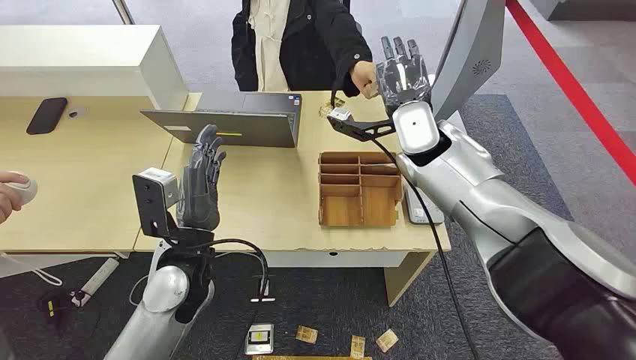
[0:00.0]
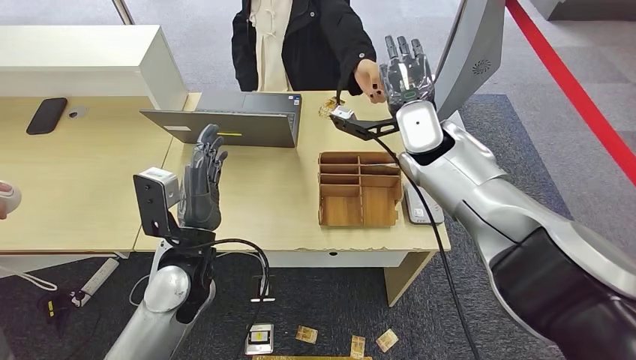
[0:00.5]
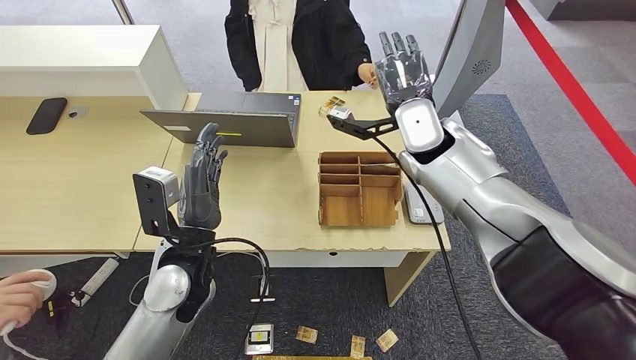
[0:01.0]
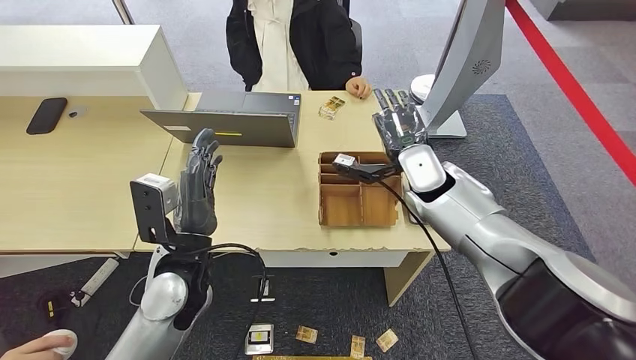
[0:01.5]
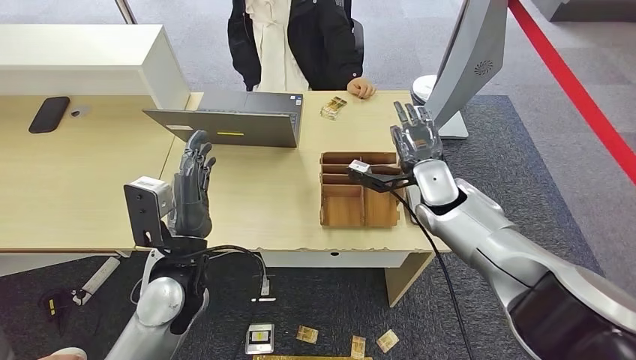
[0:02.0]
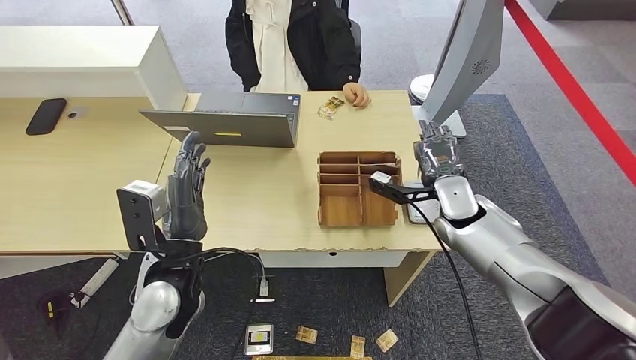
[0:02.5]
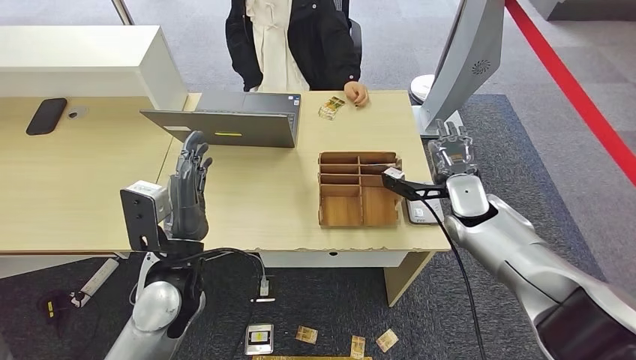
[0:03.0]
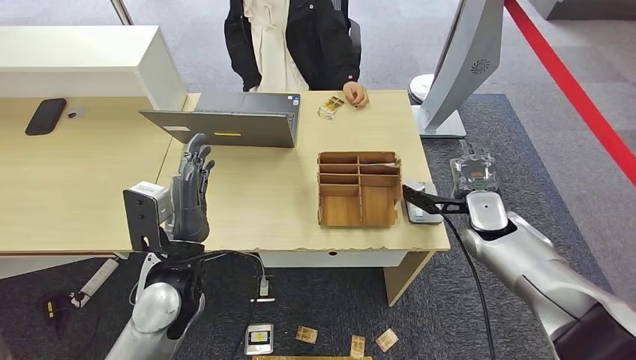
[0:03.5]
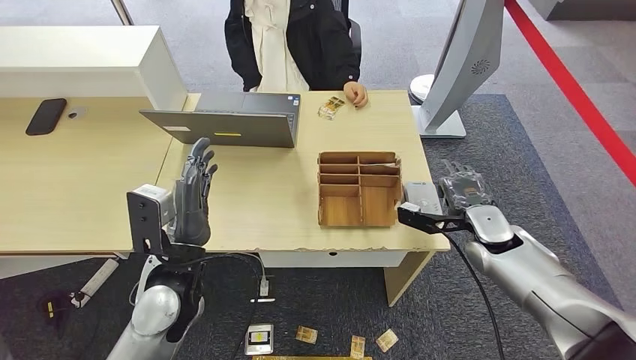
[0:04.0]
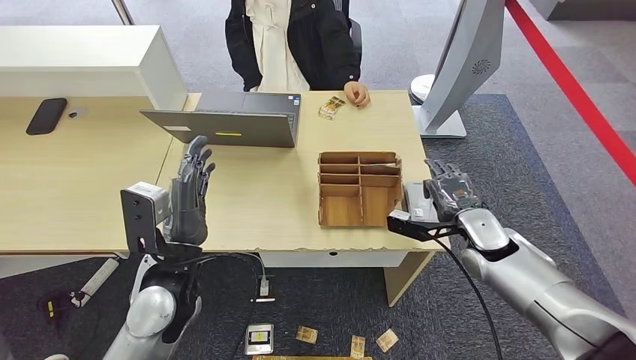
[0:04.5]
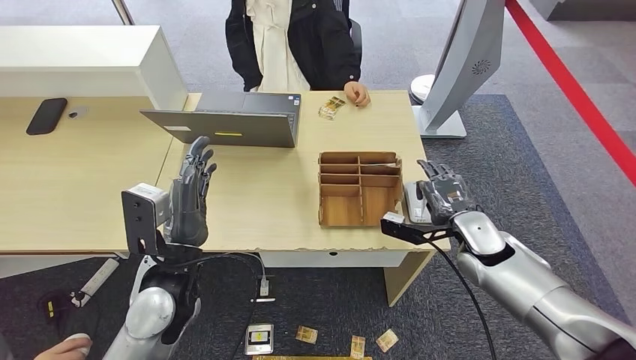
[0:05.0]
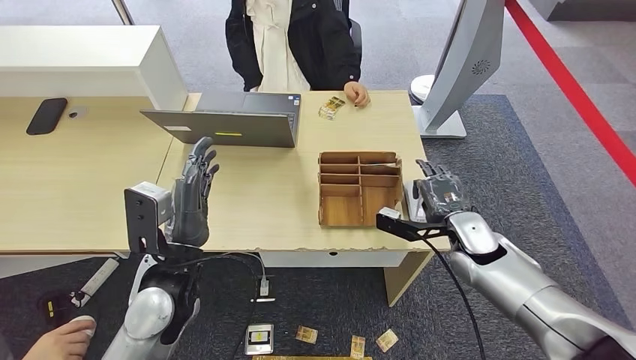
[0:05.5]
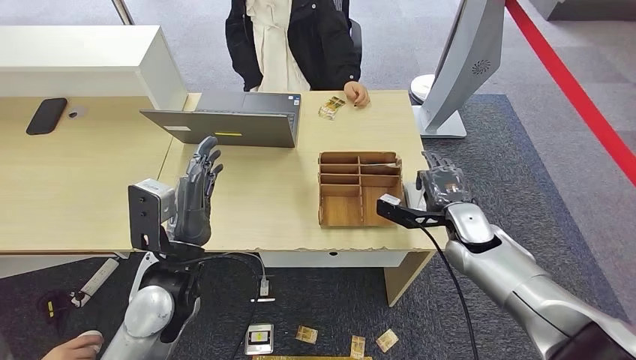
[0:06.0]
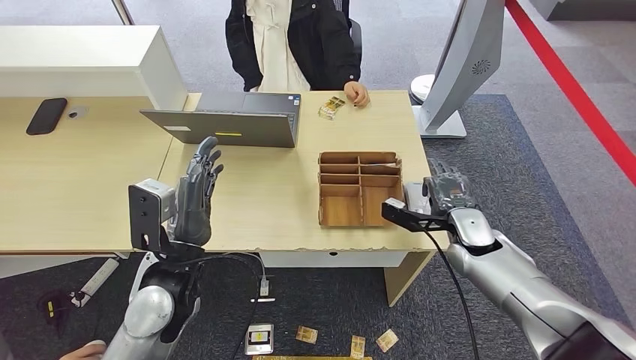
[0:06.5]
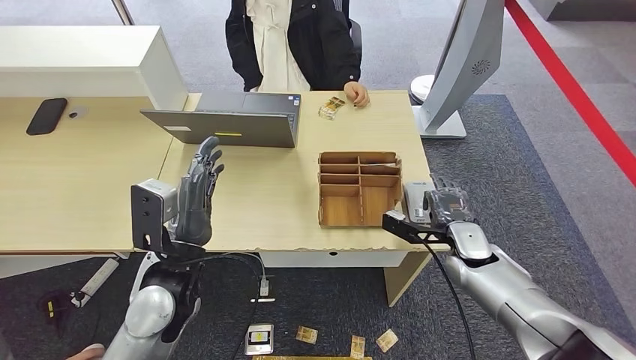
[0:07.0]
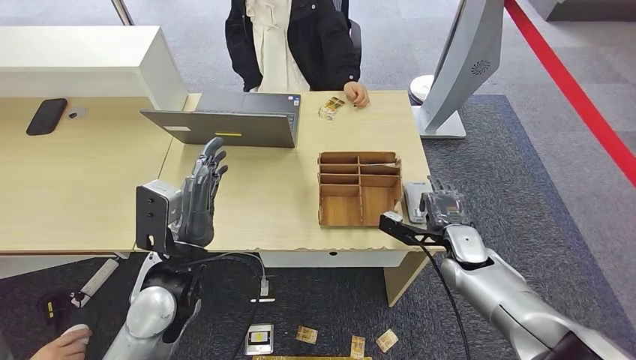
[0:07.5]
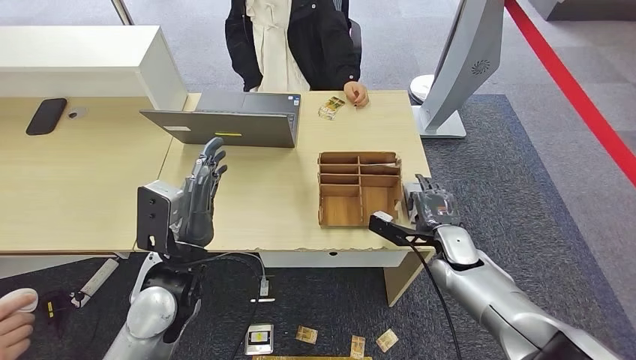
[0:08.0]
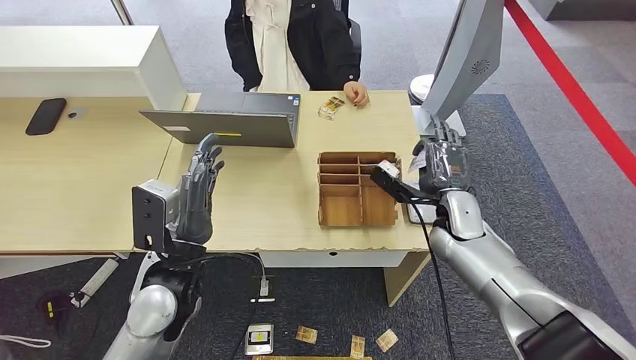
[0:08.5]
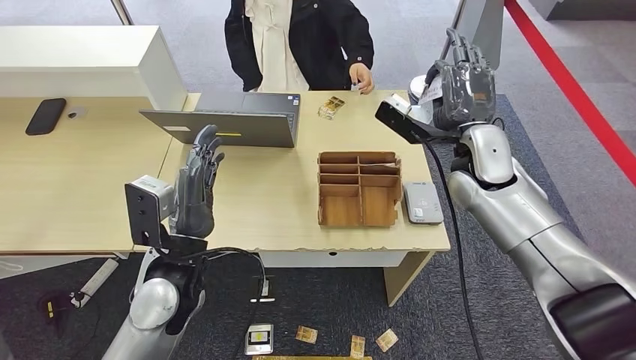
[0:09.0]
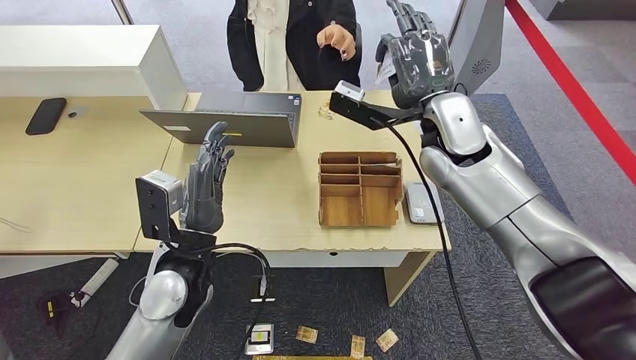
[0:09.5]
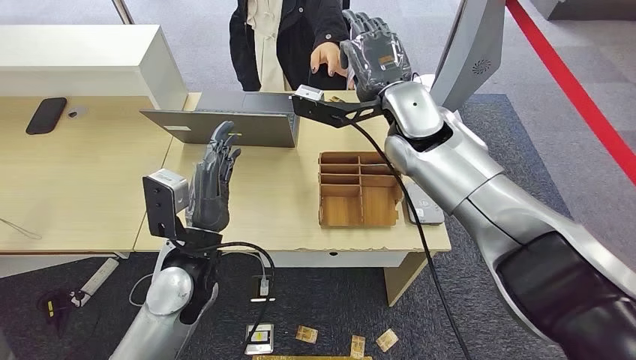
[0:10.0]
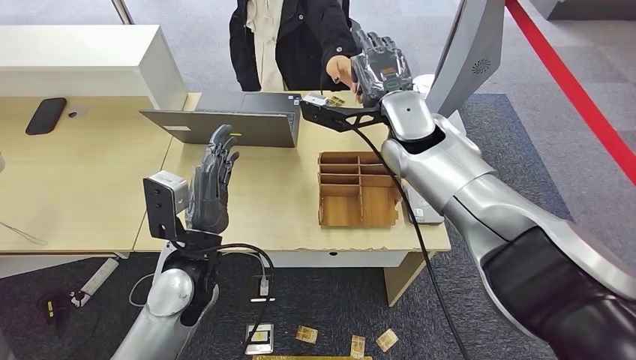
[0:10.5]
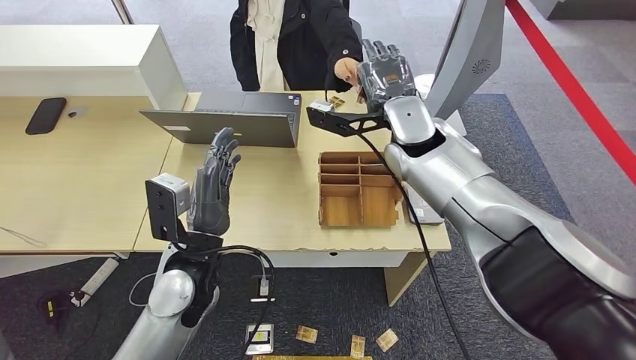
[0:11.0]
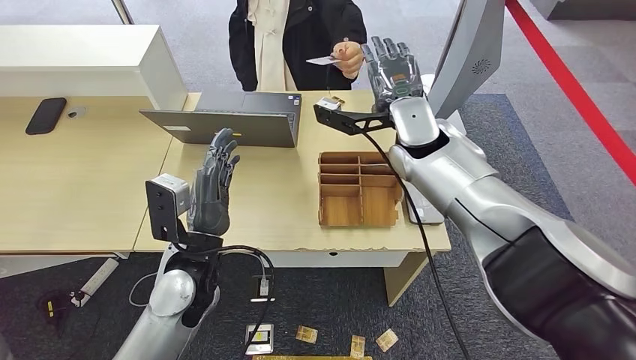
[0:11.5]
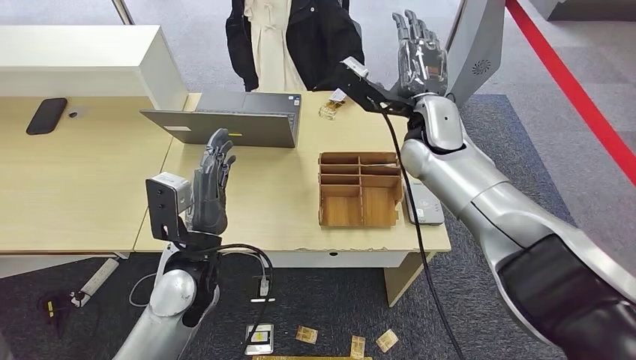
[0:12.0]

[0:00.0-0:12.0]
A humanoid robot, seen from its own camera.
Step, 0:00.0 to 0:01.0: Take the ID card from the person's hand.
Step, 0:01.5 to 0:08.5: Place the ID card on the card reader.
Step, 0:09.0 to 0:11.5: Hand the ID card to the person.
0:02.0 to 0:04.0: The right hand goes some 15 cm to the right, downward and backward.
0:04.0 to 0:06.0: The hands stay close to where they were, moving slightly.
0:06.0 to 0:08.0: The right hand shifts roughly 5 cm downward.
0:10.0 to 0:12.0: The right hand moves approximately 5 cm.

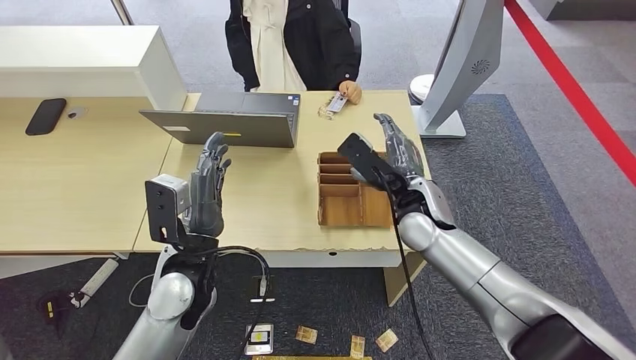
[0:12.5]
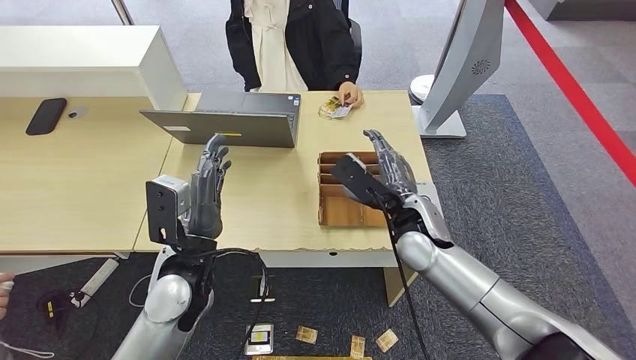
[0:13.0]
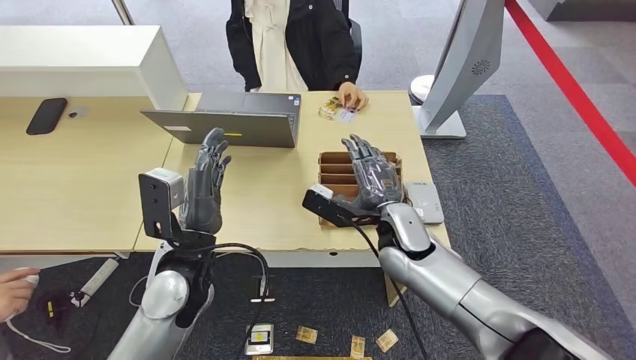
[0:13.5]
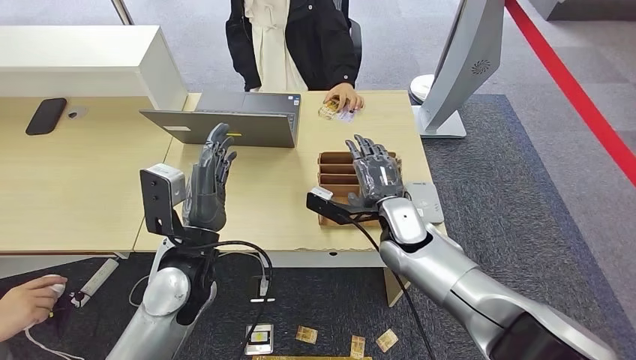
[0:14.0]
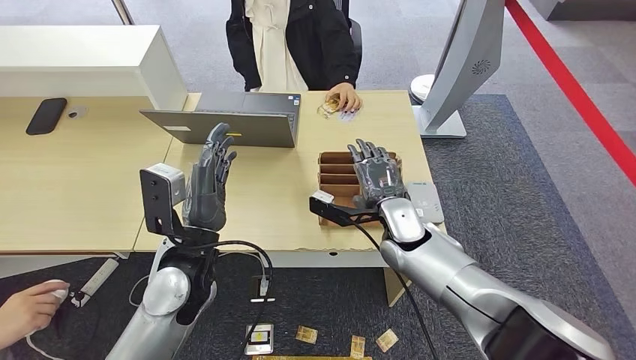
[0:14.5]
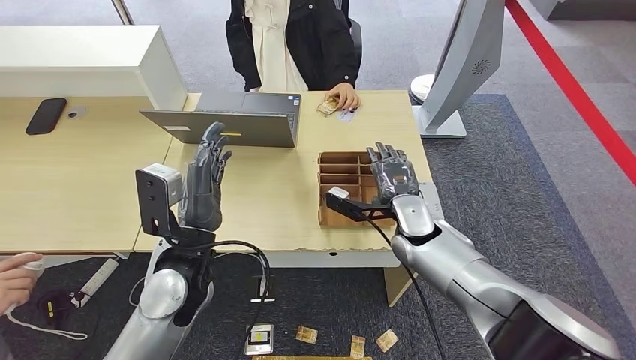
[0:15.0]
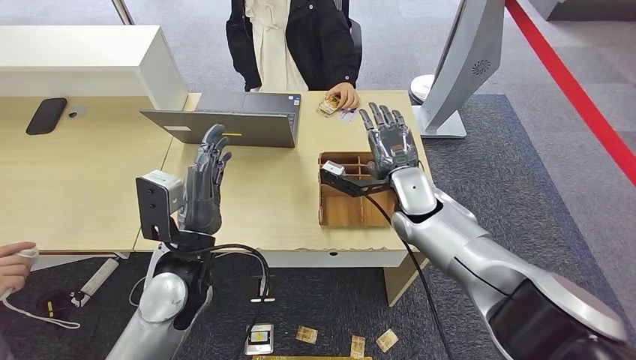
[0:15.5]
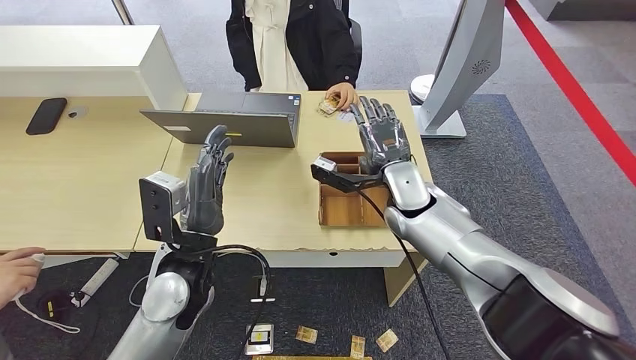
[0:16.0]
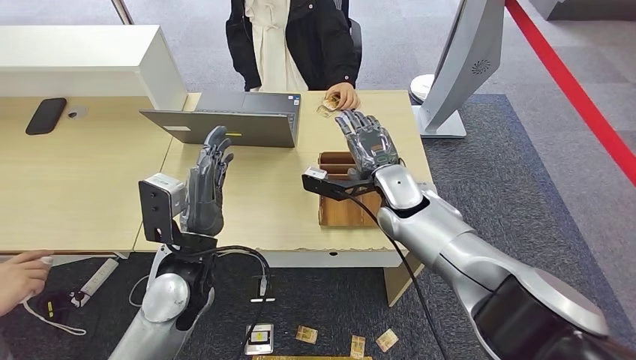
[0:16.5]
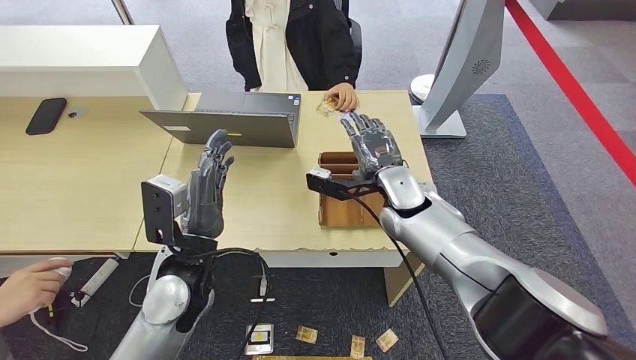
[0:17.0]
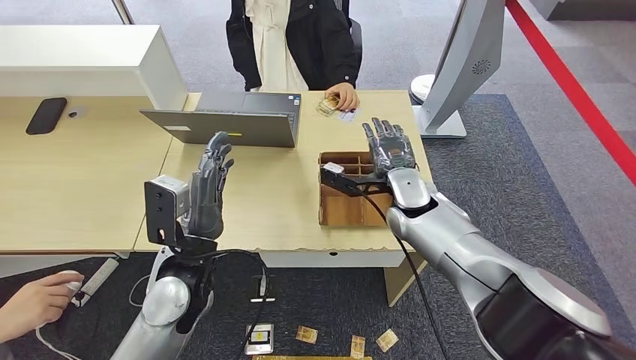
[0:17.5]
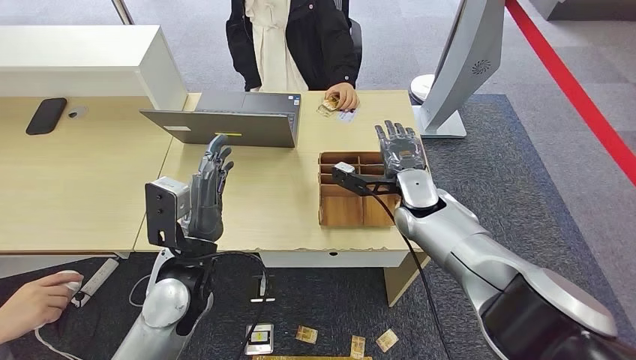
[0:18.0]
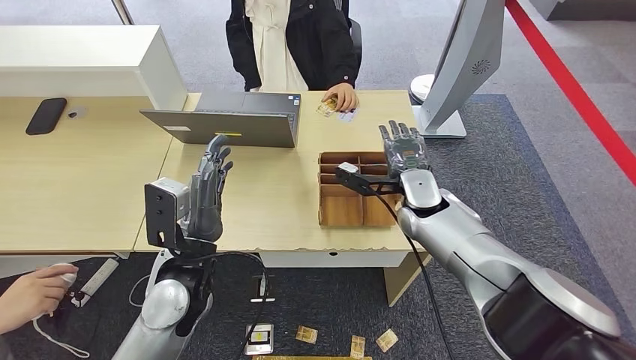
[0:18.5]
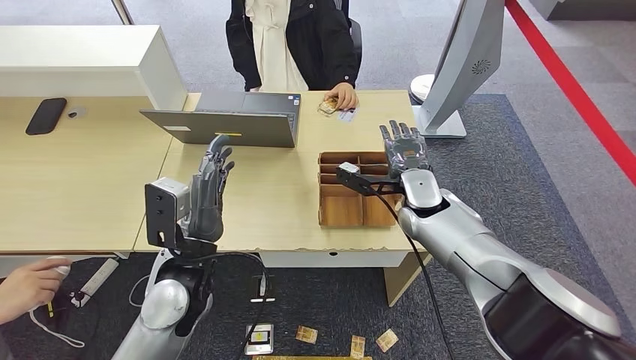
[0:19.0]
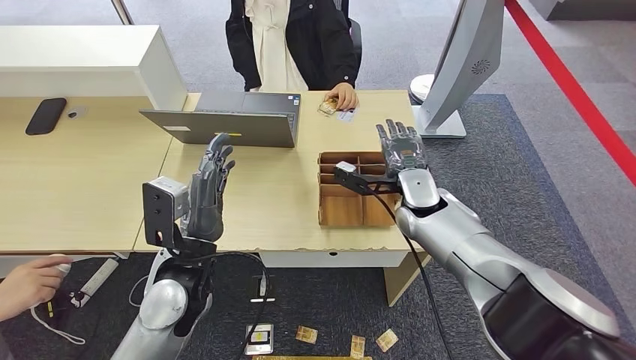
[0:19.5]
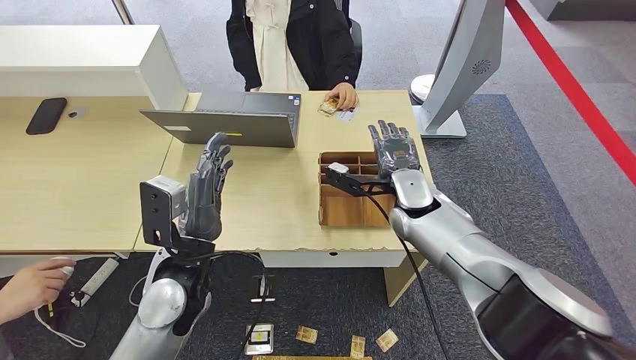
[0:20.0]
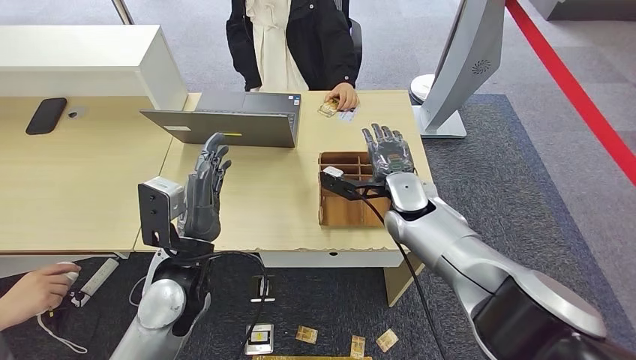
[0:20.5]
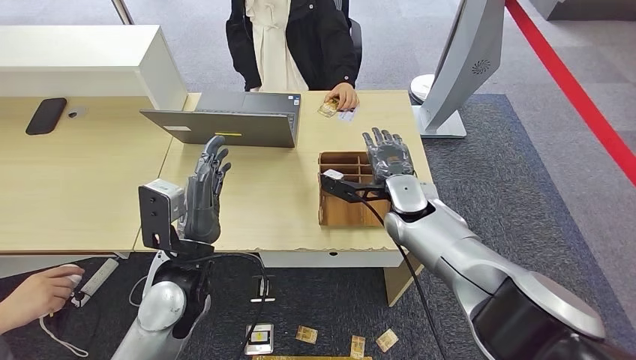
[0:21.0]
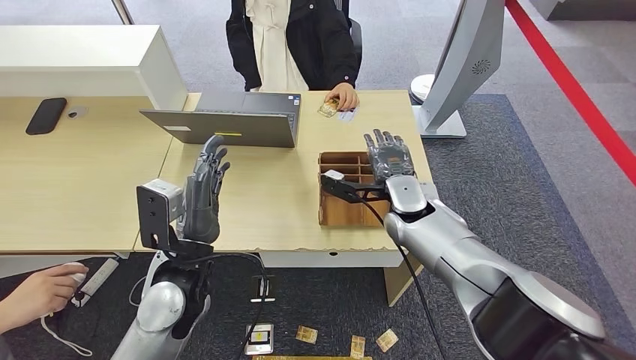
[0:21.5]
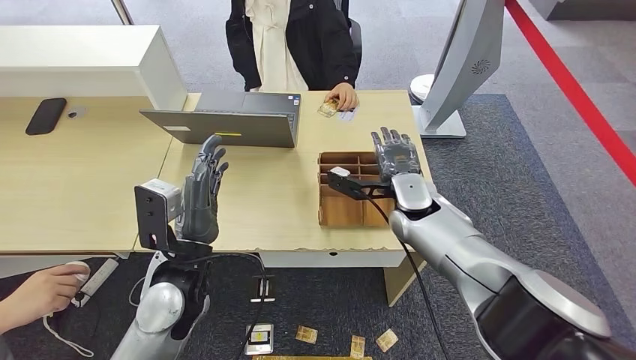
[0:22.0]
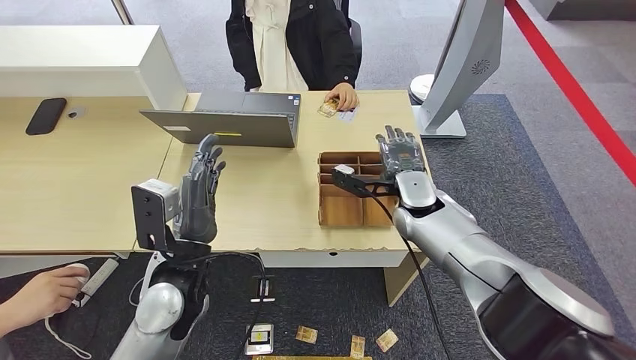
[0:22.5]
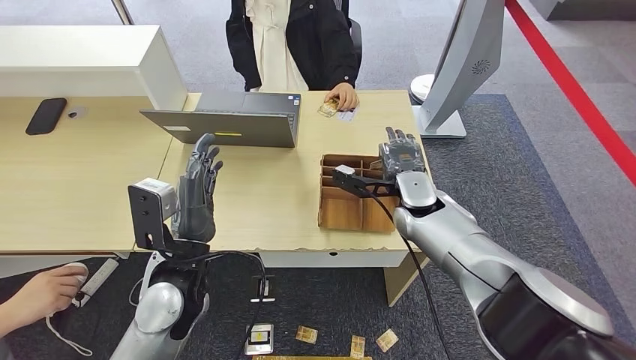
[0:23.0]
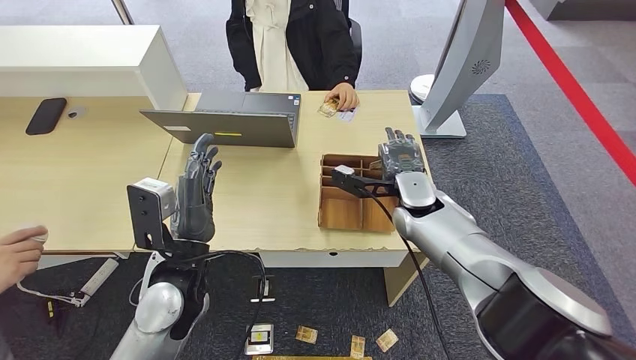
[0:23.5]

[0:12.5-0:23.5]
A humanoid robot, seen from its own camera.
0:12.5 to 0:14.5: The right hand is displaced downward by about 5 cm.
0:14.5 to 0:16.0: The right hand moves upward, some 5 cm.
0:16.0 to 0:18.0: The hands stay close to where they were, moving slightly.
0:18.0 to 0:20.0: Neither hand changes place.
0:20.0 to 0:21.5: The two hands keep their place.
0:21.5 to 0:23.5: The hands make only small movements.
